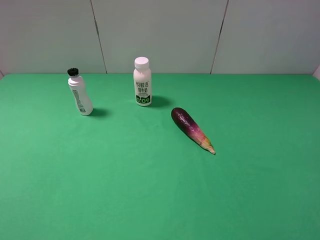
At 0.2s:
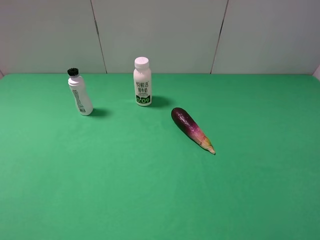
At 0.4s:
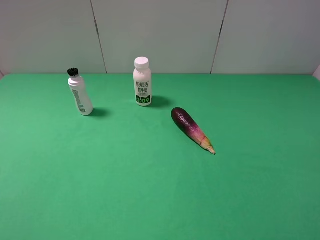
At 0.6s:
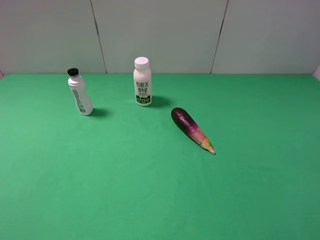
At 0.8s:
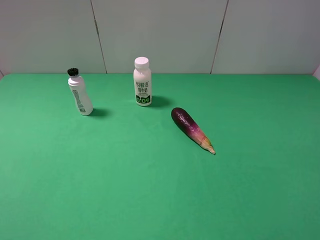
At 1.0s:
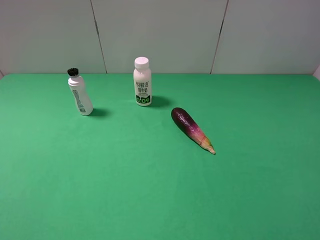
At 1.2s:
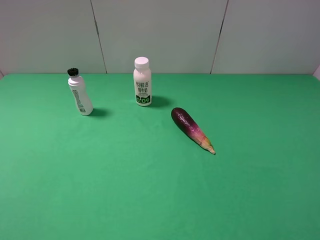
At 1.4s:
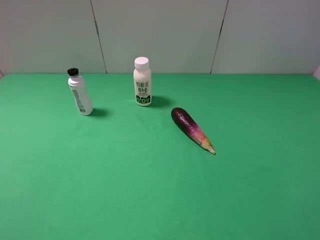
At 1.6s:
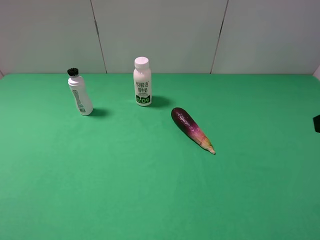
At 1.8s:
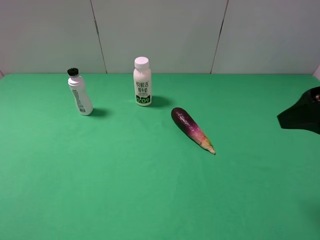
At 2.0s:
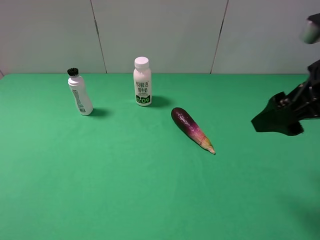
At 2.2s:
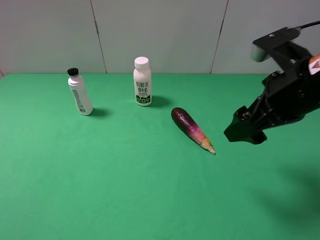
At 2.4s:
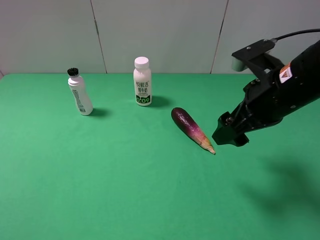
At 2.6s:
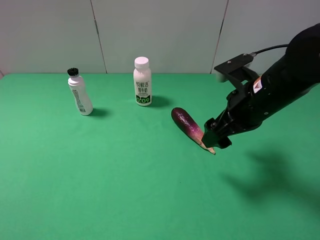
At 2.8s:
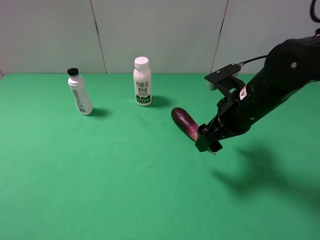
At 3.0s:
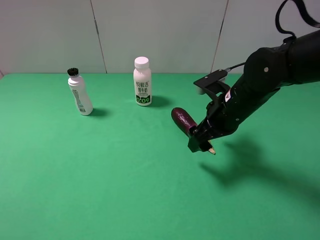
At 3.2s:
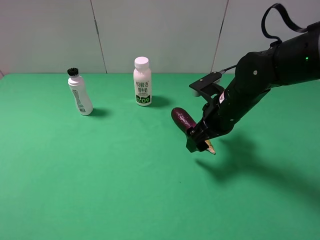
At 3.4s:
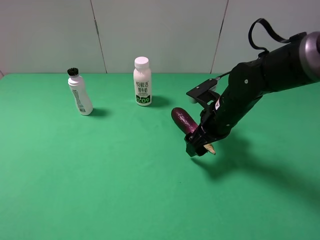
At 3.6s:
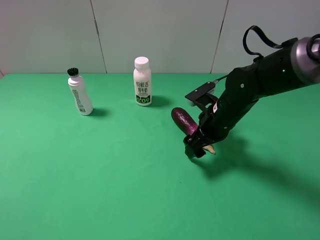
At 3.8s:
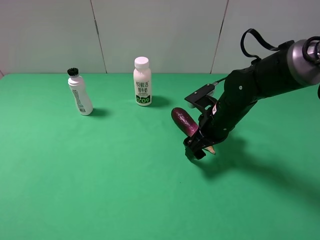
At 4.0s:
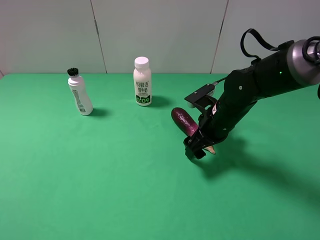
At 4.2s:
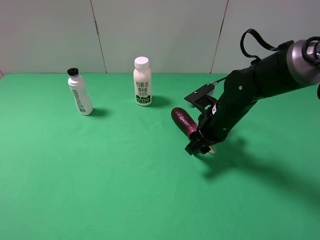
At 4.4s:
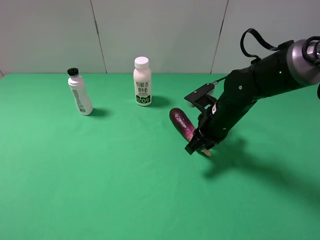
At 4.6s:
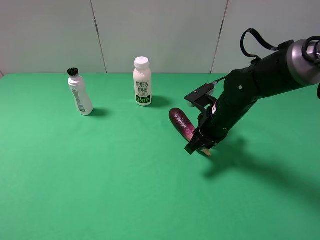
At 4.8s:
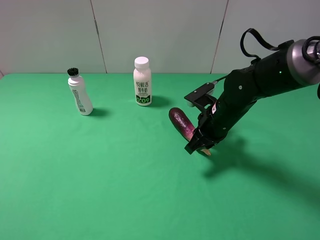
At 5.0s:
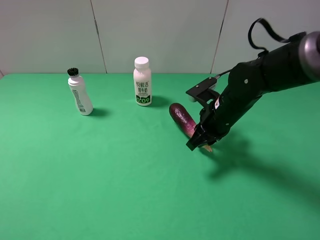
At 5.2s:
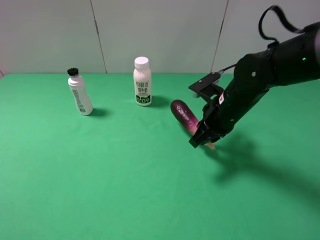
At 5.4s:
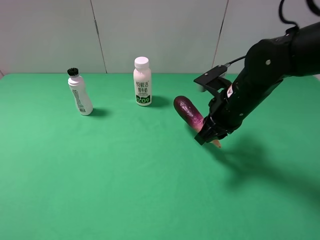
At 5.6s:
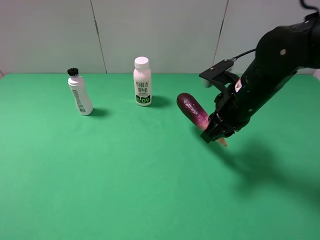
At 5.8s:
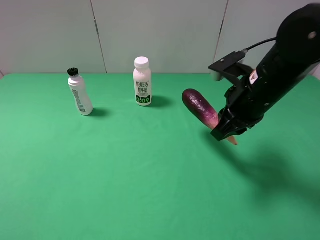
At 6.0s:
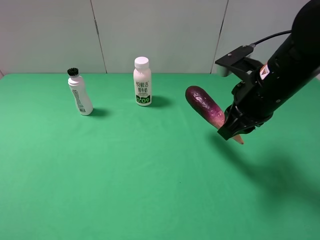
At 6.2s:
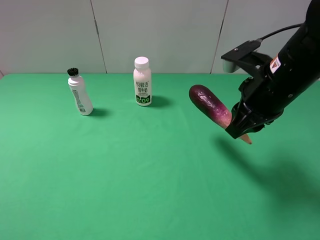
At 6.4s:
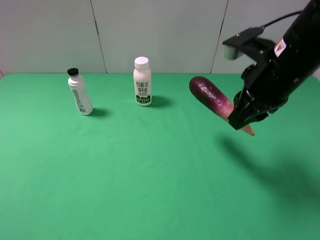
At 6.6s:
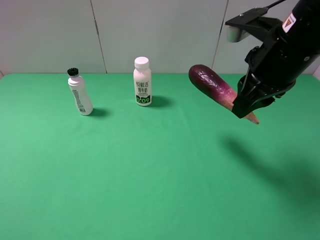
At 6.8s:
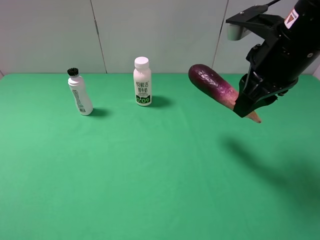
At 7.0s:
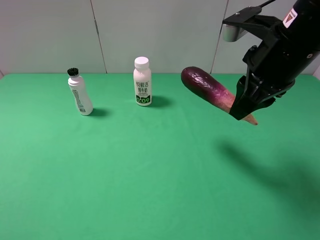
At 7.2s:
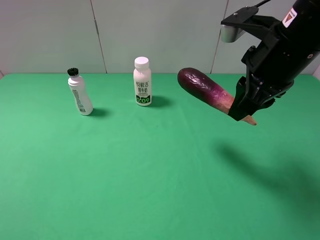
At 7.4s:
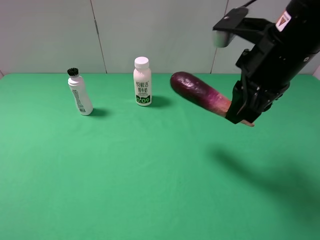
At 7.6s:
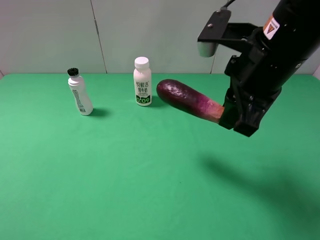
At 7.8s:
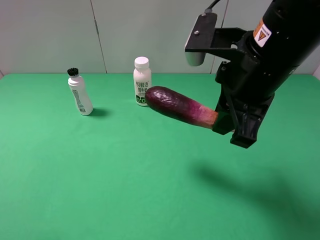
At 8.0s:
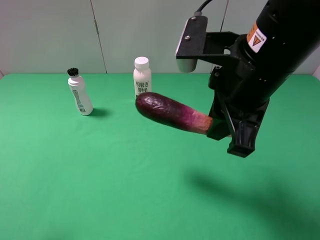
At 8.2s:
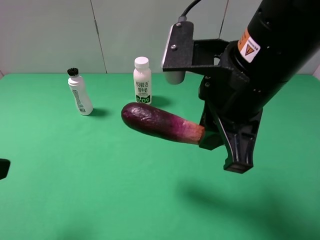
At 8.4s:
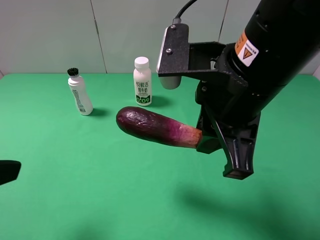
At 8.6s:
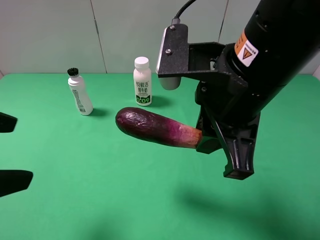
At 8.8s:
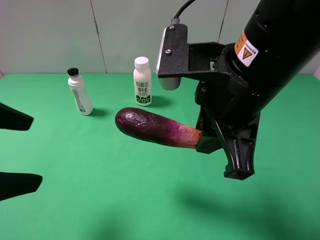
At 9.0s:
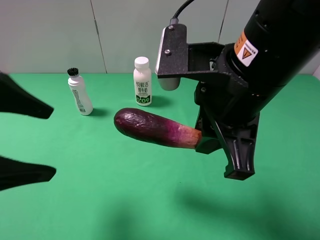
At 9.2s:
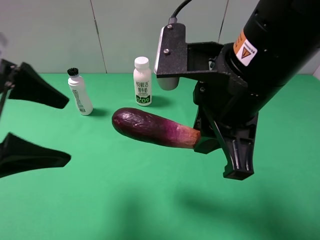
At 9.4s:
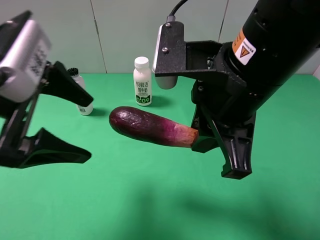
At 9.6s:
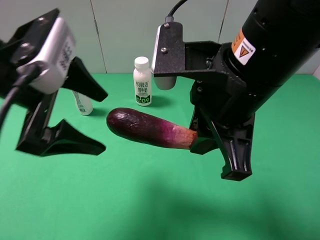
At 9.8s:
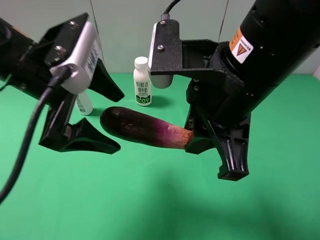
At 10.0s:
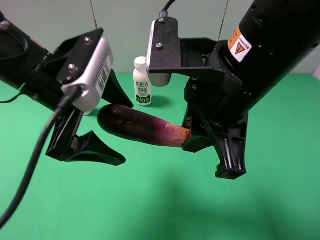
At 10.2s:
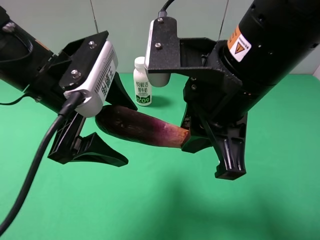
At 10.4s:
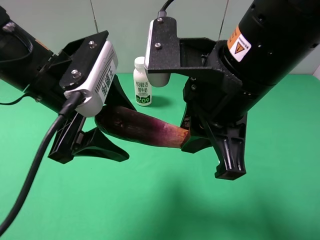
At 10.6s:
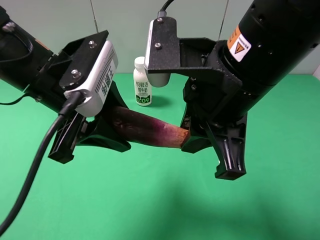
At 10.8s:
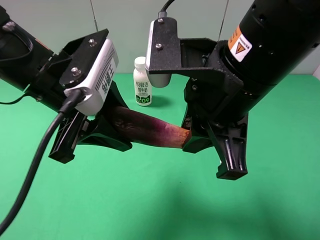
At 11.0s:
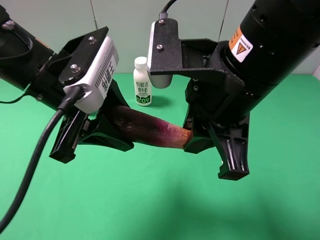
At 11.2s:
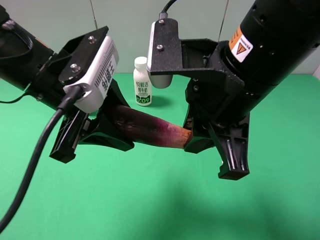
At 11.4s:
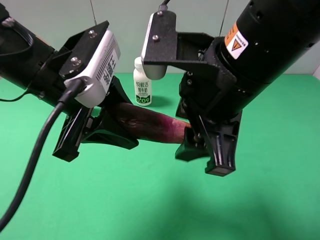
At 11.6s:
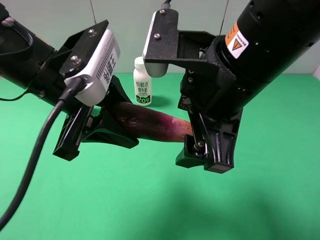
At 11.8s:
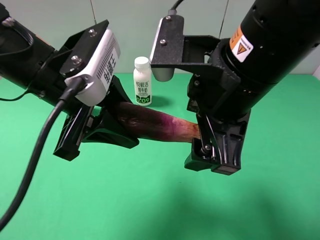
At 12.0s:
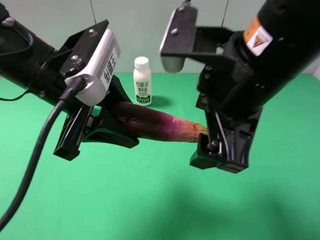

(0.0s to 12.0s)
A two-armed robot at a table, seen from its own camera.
Task of the whole recording: use the right gripper to pick up the item and transfer it from the right gripper to the left gripper.
Step, 4.8s - 11.4s: Pass the eggplant to the left gripper.
1.6s - 3.0s: The right gripper moves forward, downward and to the left, about 25 cm.
3.0s - 4.4s: The right gripper closes up.
4.4s - 6.0s: The right gripper goes roughly 15 cm upward and backward.
6.0s - 7.6s: The right gripper travels upward by some 5 cm.
7.6s - 9.0s: The left gripper shifts some 15 cm forward and to the right, while the right gripper changes place by about 5 cm.
9.0s - 10.4s: The left gripper moves to the right and forward, about 10 cm, and closes up.
10.4s - 12.0s: The left gripper closes, while the right gripper opens.

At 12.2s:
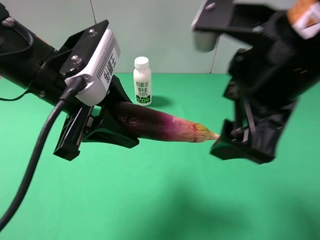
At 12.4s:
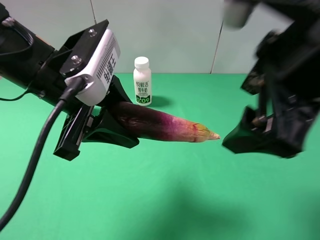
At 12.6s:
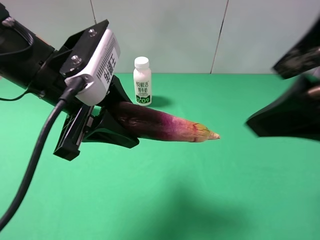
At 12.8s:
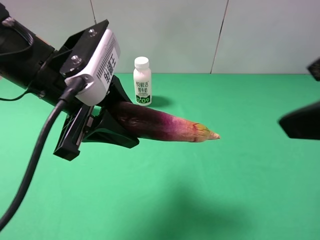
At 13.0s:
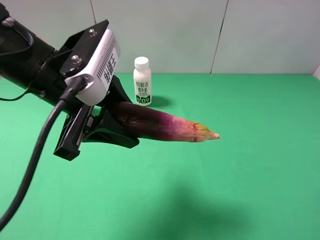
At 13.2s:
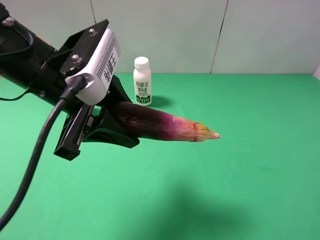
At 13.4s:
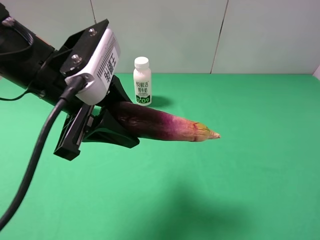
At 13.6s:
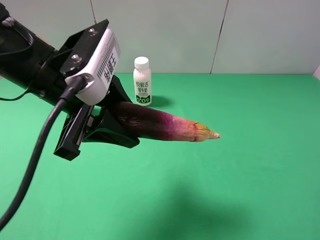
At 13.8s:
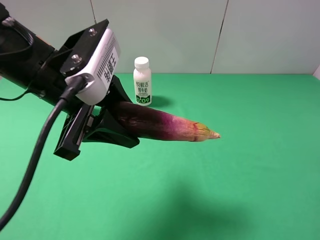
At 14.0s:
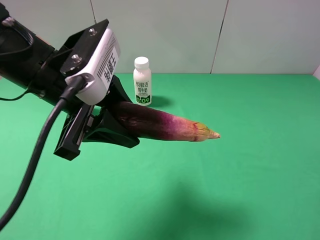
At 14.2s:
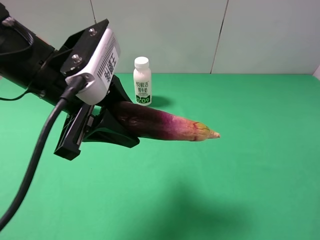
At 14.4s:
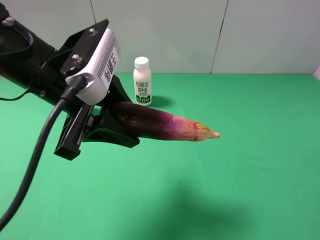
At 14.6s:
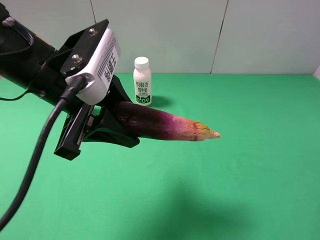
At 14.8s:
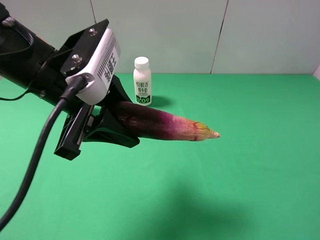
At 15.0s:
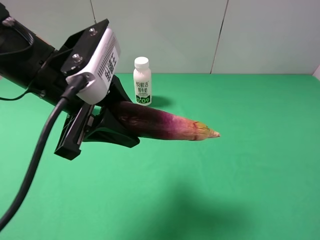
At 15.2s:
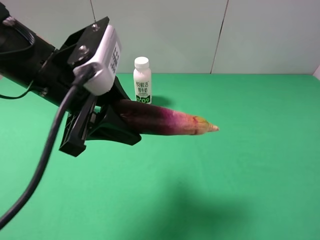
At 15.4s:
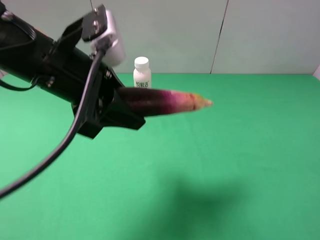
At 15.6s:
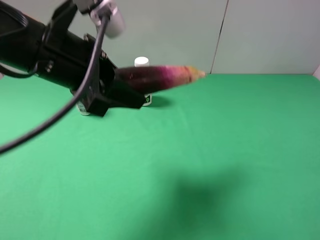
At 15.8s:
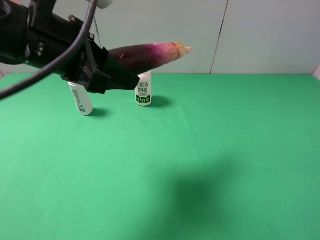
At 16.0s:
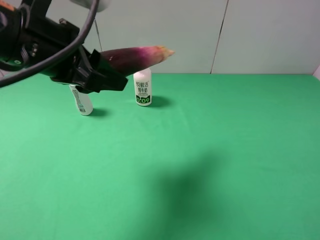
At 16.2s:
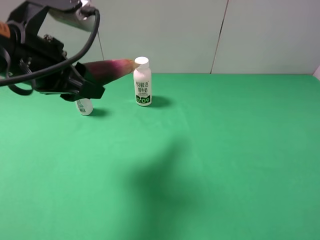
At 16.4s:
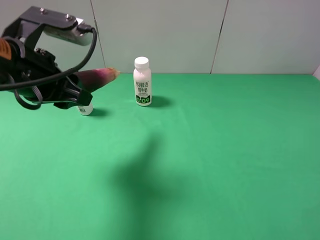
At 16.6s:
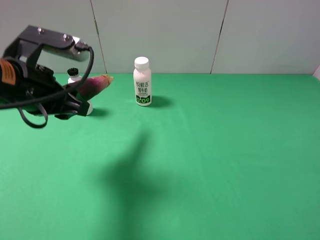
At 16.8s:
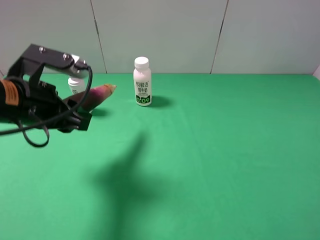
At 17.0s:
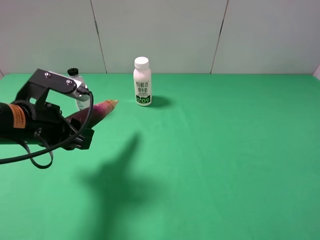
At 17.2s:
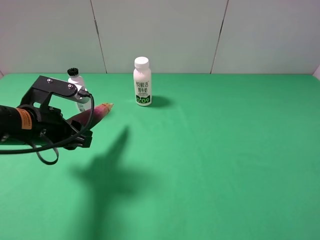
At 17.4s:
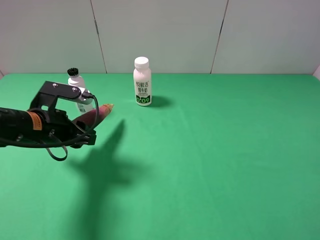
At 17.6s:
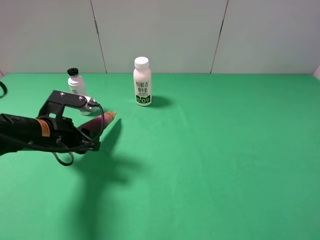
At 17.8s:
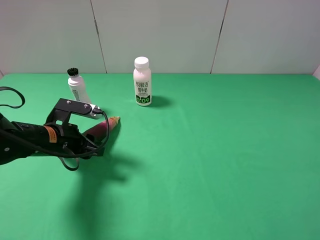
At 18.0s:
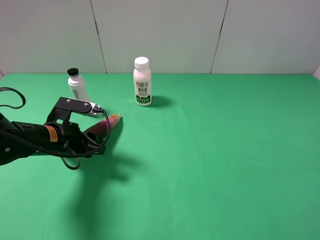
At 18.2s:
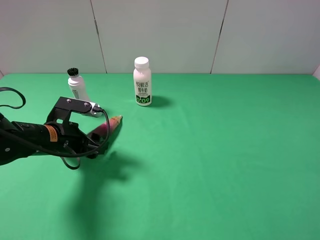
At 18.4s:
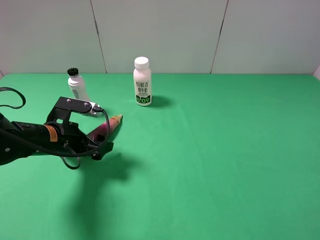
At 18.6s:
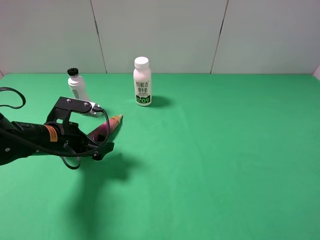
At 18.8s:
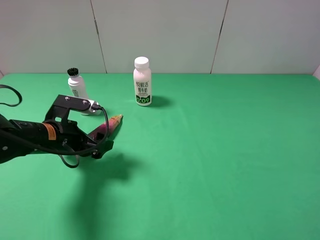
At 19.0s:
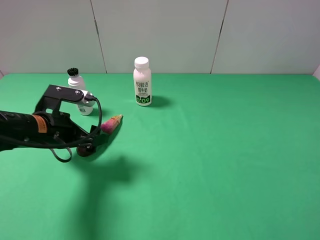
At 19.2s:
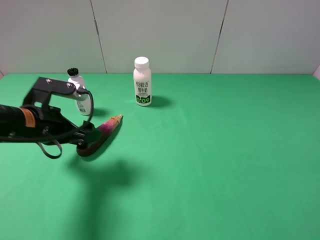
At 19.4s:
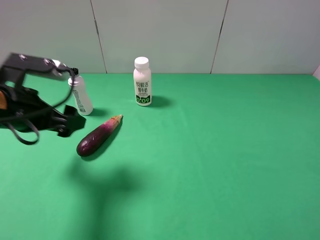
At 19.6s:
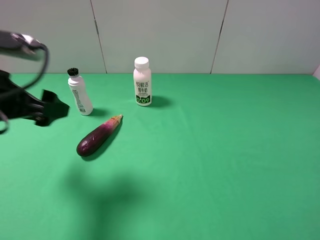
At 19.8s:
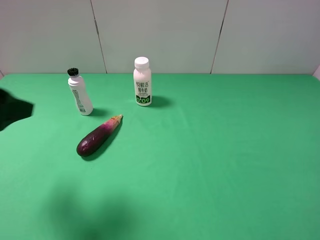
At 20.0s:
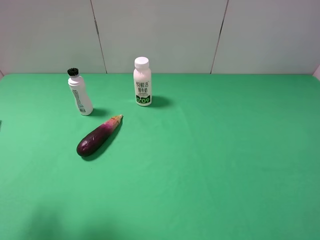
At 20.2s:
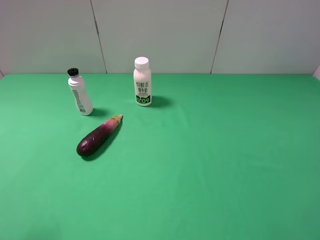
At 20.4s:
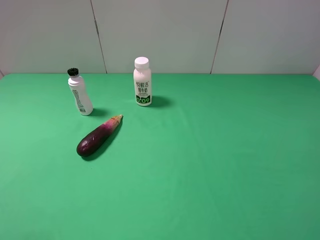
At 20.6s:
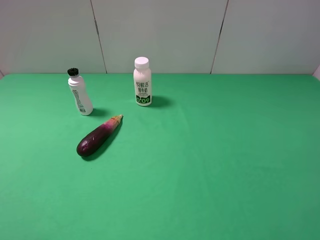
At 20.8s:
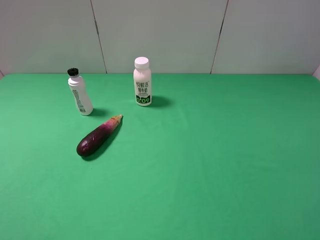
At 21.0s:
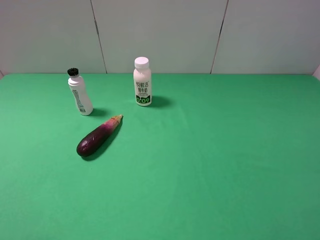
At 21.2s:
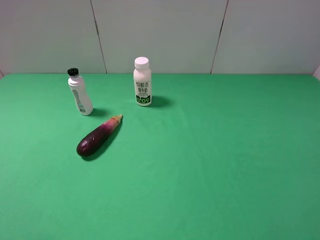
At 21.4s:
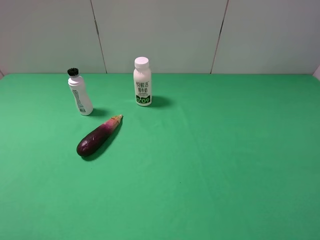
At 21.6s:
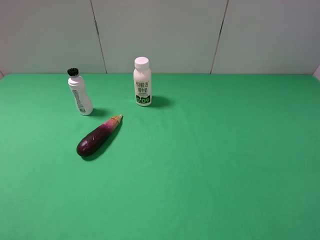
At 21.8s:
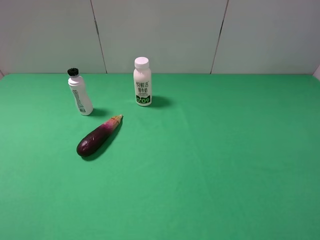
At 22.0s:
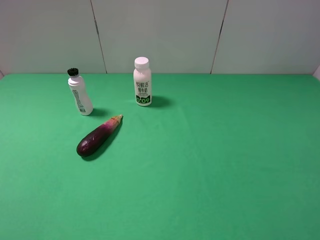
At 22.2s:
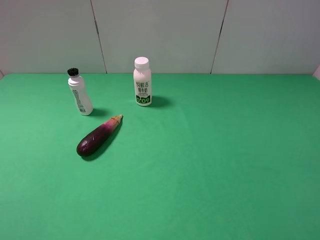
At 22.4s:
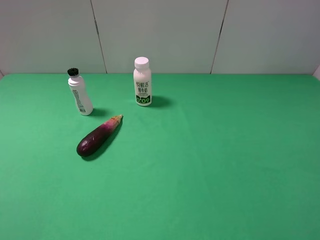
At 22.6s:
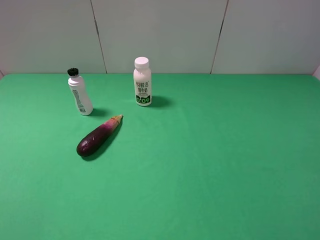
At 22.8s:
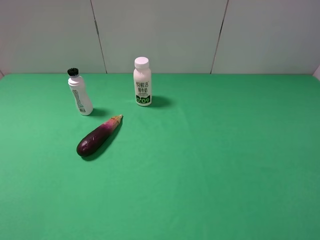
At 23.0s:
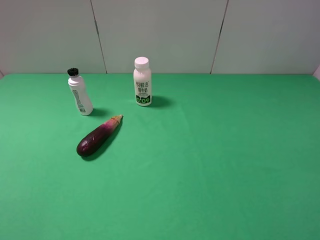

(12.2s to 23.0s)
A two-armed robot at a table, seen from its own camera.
Task of the whole recording: use the right gripper to pick up the item and transfer it from the right gripper to the left gripper.
Step, 12.2s - 18.2s: The left gripper places eggplant on the left side of the table.
12.2s - 13.8s: The right gripper heads to the right and backward, covering some 20 cm.
15.2s - 16.8s: The left gripper moves to the left, roughly 5 cm.
16.8s - 18.4s: The left gripper goes about 10 cm downward, and opens up.
18.4s - 20.0s: The left gripper is displaced upward, backward and to the left by about 25 cm.
20.0s - 21.4s: The left gripper travels backward by approximately 10 cm.
